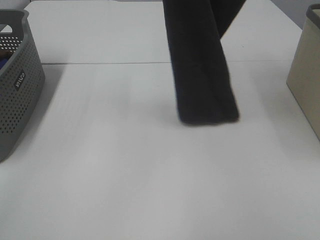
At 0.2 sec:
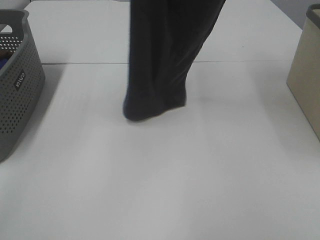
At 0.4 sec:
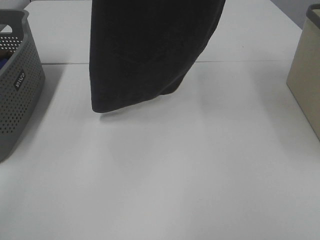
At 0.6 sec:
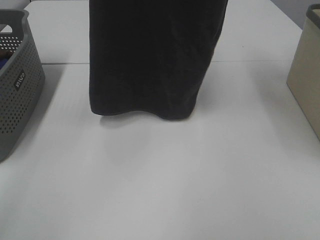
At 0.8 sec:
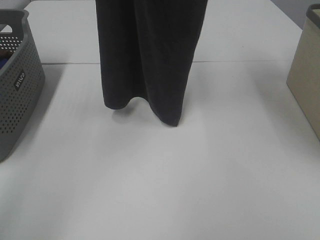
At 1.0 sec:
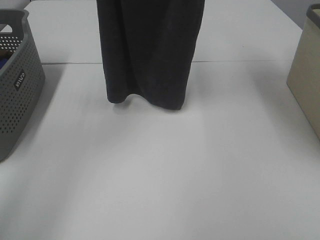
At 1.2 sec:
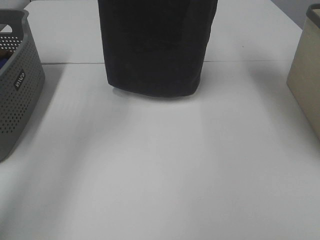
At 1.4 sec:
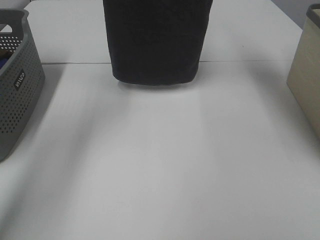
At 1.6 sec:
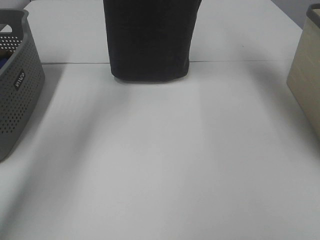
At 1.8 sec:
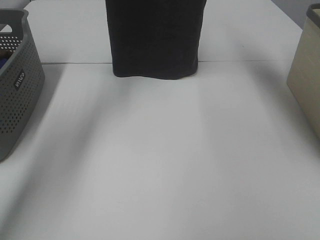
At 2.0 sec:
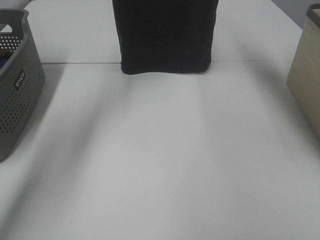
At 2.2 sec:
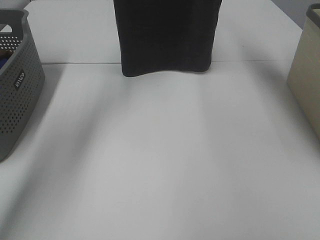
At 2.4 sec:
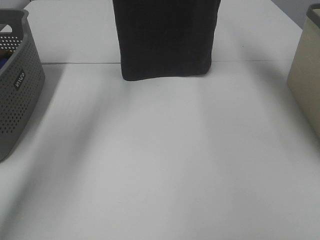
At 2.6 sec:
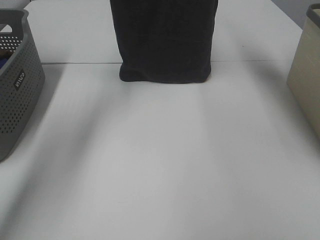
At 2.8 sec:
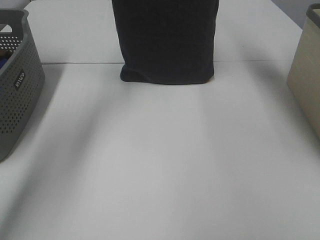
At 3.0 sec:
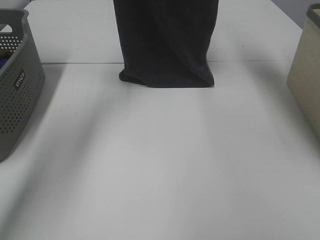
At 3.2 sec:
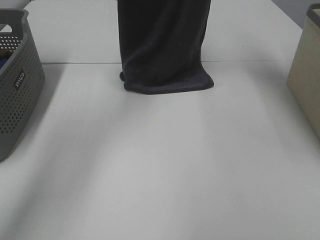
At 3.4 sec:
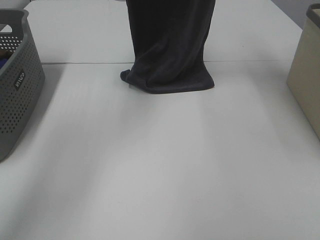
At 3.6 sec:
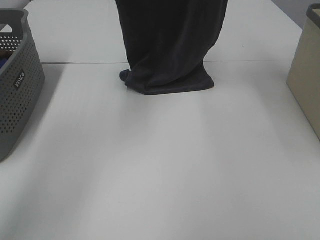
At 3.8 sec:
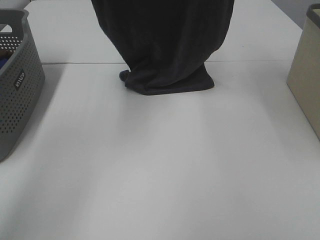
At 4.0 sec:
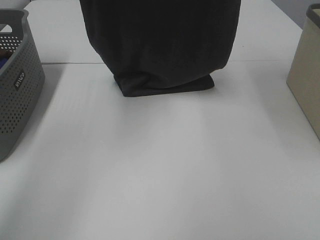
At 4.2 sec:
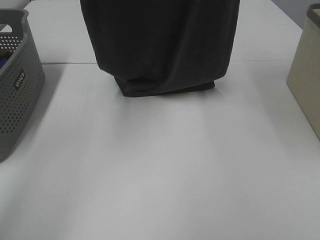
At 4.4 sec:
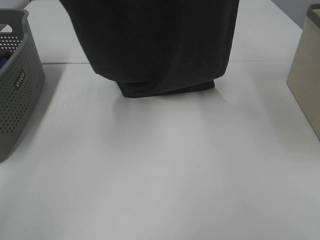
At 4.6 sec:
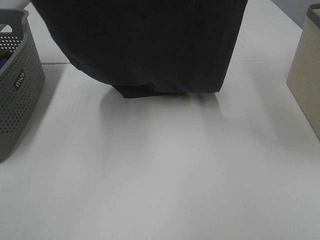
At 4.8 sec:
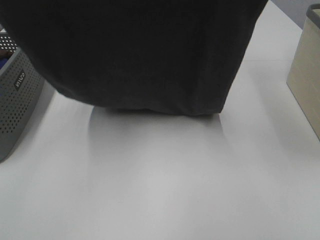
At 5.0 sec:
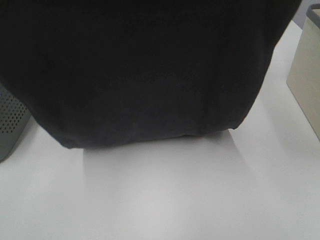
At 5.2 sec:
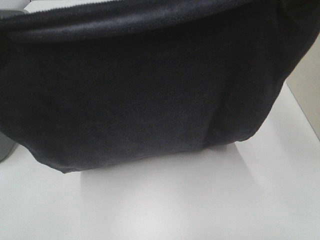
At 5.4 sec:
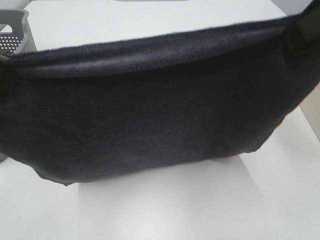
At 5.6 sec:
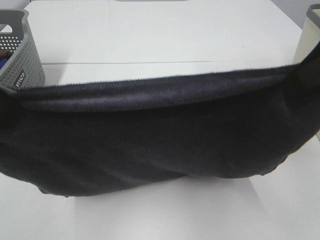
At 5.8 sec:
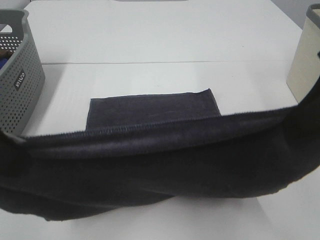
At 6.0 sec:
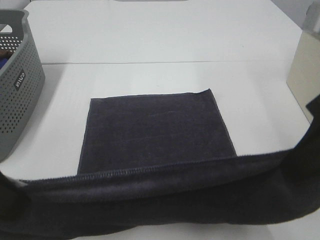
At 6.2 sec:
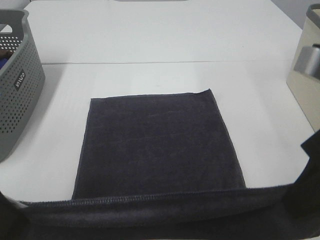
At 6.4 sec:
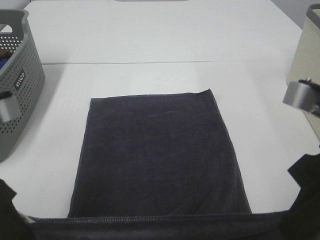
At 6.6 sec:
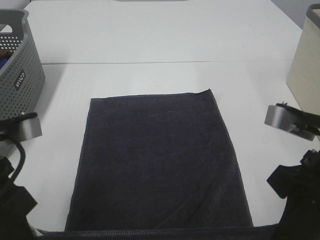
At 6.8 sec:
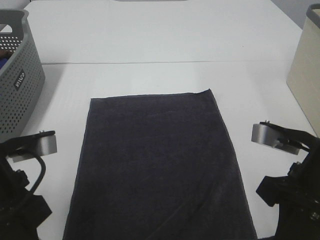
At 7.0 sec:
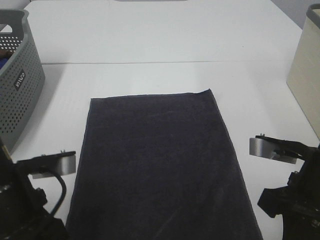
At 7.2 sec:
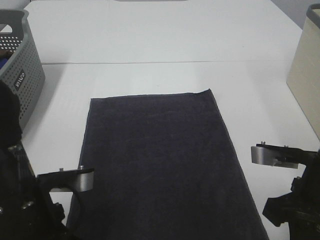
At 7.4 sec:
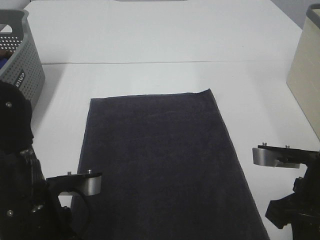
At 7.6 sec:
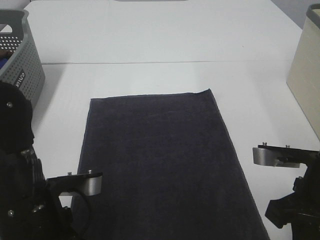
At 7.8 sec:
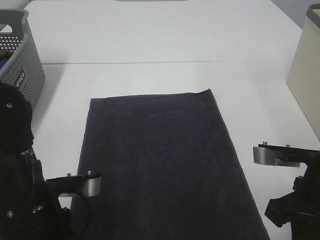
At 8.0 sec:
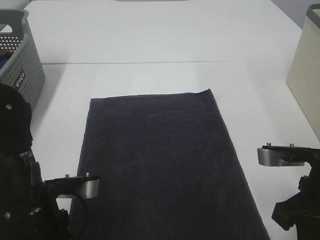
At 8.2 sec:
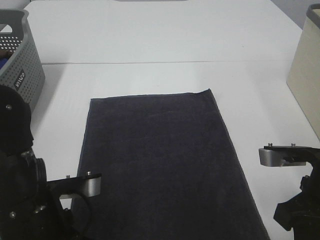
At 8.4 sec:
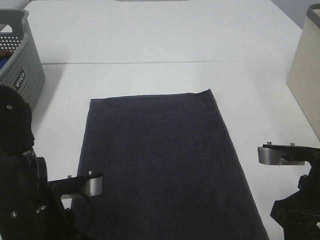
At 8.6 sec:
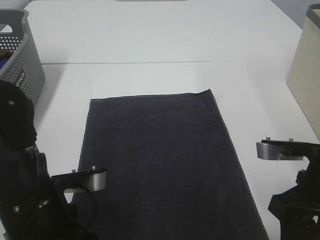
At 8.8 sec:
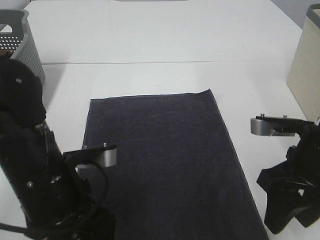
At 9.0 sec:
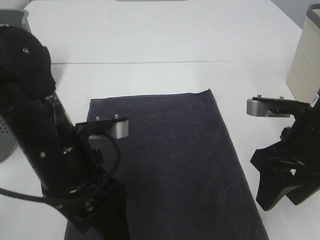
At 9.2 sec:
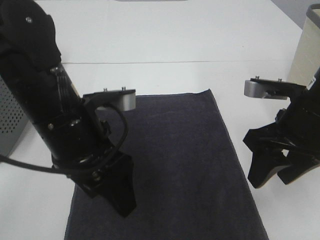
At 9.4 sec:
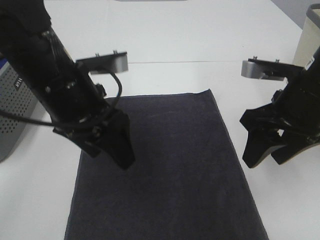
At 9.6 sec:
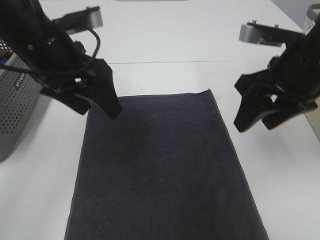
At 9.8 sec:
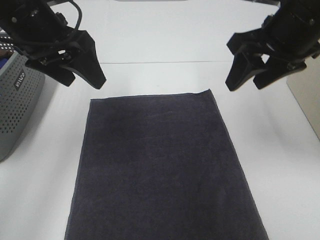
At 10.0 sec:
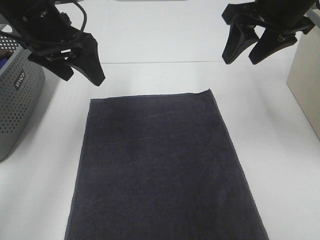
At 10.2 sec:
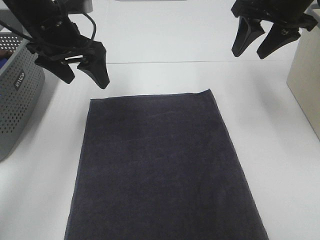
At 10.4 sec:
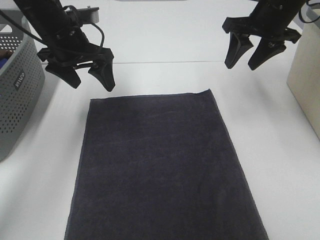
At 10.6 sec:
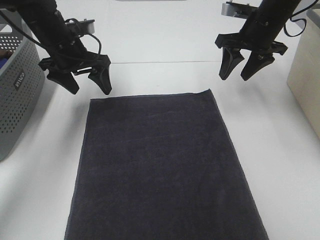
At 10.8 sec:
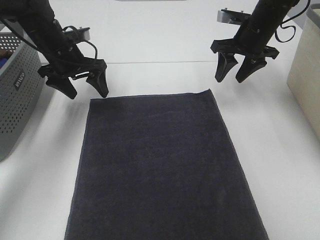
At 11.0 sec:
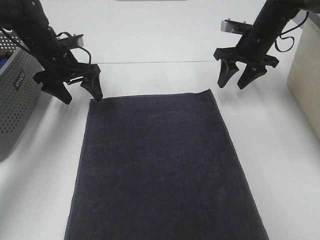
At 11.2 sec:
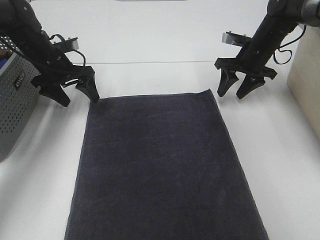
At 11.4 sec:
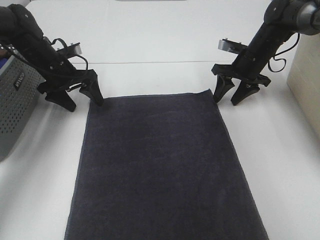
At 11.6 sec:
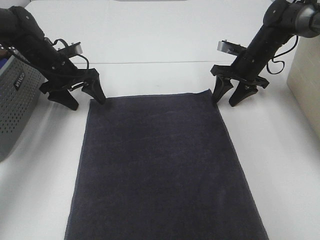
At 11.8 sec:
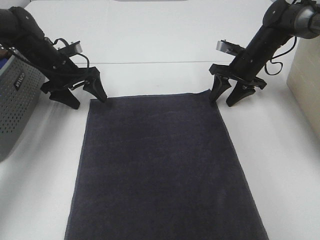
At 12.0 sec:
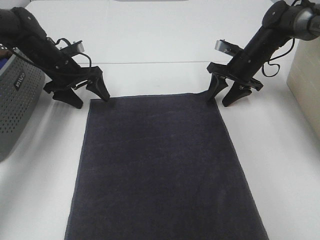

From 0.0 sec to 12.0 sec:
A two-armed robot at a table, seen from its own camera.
Task of the whole recording: Remove the towel and place it.
Step, from 0.0 sec to 4.8 sec: Left hand: spread the grey towel flat on the table.
Step, from 0.0 sec to 4.8 sec: Right hand: spread the grey towel flat on the table.
From 0.0 sec to 1.6 sec: The two grippers go roughly 20 cm forward.
From 1.6 sec to 3.0 sec: There are only small adjustments of the grippers.
From 3.0 sec to 4.4 sec: The two grippers go approximately 15 cm backward.
From 4.4 sec to 6.0 sec: The right gripper is displaced downward and backward by approximately 25 cm. Meanwhile the left gripper heads backward and downward, covering about 25 cm.
From 6.0 sec to 7.6 sec: The right gripper moves downward, about 15 cm, while the left gripper is displaced downward and to the right by about 15 cm.
From 7.6 sec to 9.0 sec: The right gripper ends up some 5 cm from where it was, and opens up. Meanwhile the left gripper ends up some 5 cm from where it was, and opens its fingers.
From 9.0 sec to 10.4 sec: Both grippers travel together forward, approximately 20 cm.
From 10.4 sec to 12.0 sec: The right gripper is displaced downward and forward by approximately 15 cm, while the left gripper shifts about 15 cm downward, forward and to the left.

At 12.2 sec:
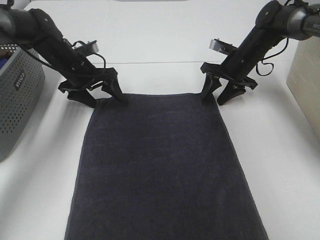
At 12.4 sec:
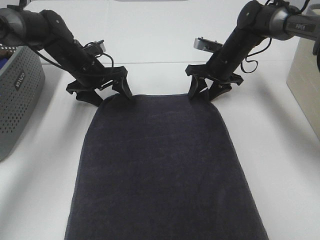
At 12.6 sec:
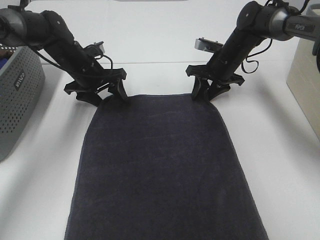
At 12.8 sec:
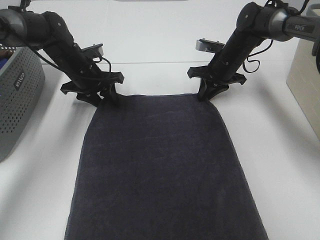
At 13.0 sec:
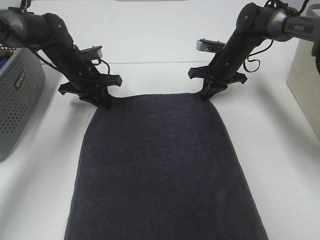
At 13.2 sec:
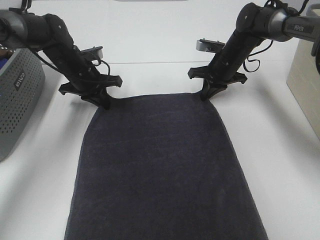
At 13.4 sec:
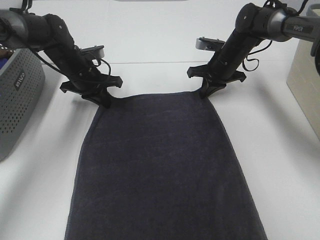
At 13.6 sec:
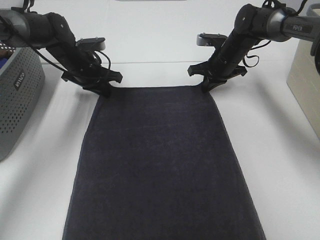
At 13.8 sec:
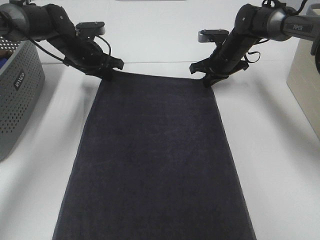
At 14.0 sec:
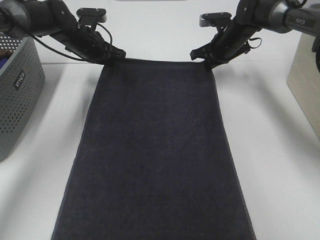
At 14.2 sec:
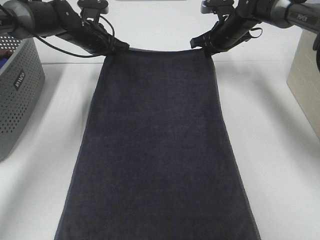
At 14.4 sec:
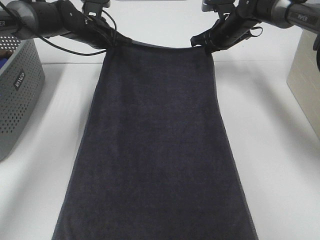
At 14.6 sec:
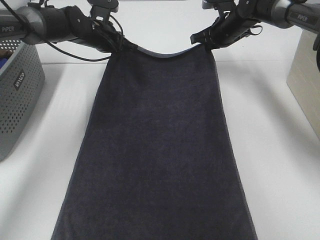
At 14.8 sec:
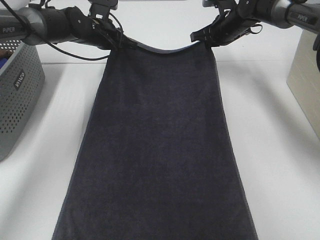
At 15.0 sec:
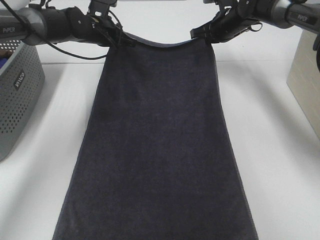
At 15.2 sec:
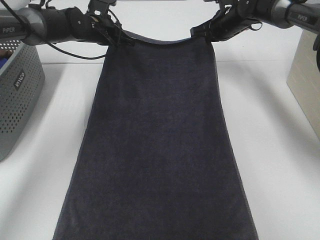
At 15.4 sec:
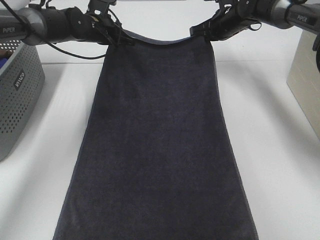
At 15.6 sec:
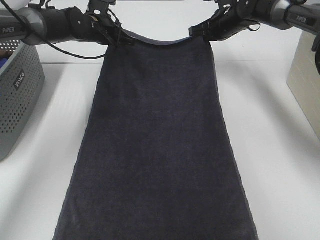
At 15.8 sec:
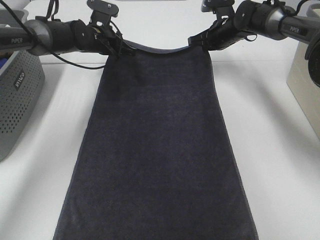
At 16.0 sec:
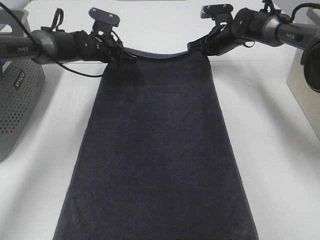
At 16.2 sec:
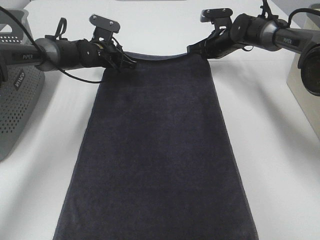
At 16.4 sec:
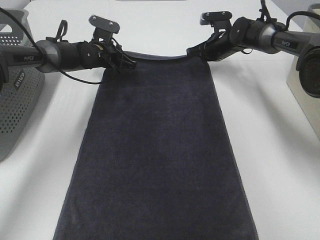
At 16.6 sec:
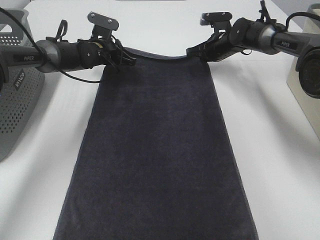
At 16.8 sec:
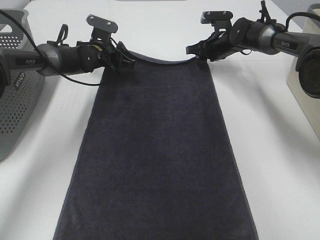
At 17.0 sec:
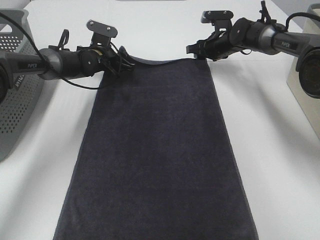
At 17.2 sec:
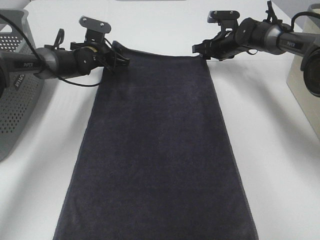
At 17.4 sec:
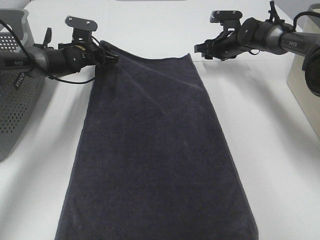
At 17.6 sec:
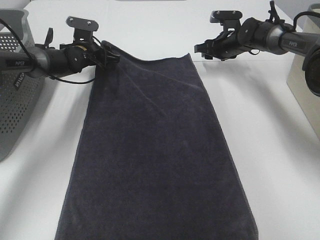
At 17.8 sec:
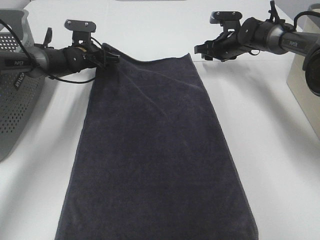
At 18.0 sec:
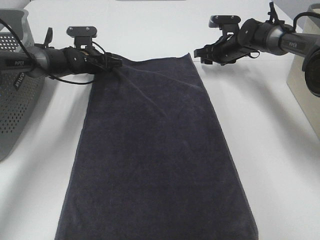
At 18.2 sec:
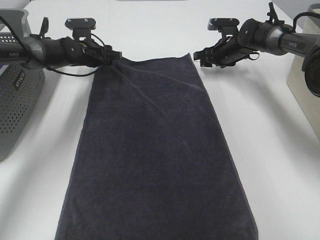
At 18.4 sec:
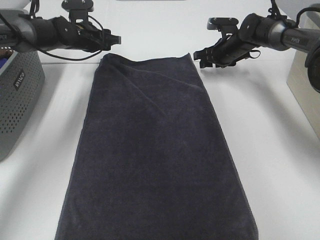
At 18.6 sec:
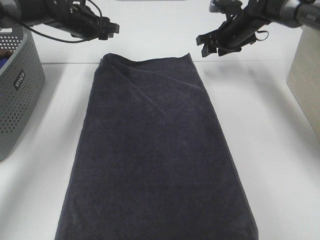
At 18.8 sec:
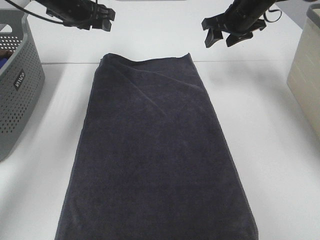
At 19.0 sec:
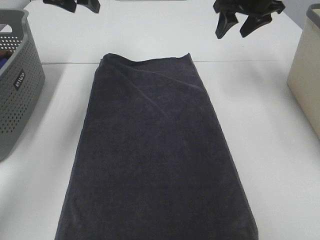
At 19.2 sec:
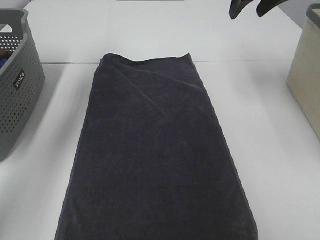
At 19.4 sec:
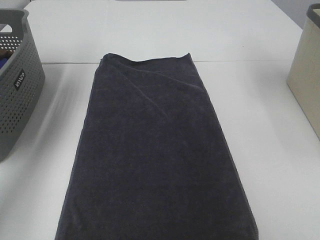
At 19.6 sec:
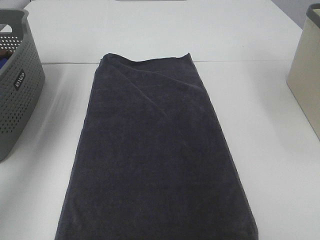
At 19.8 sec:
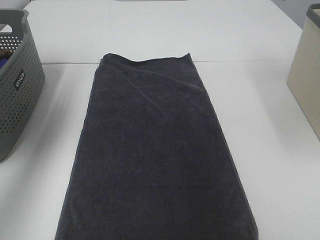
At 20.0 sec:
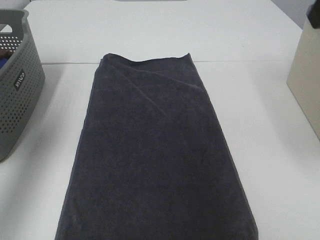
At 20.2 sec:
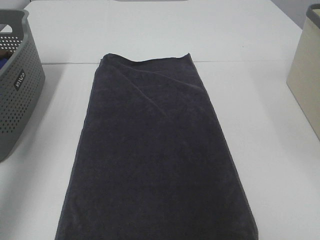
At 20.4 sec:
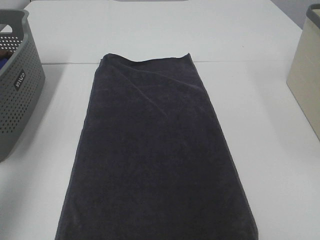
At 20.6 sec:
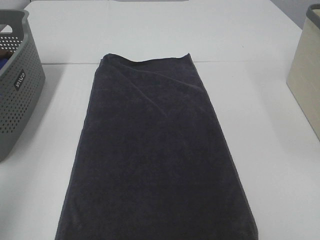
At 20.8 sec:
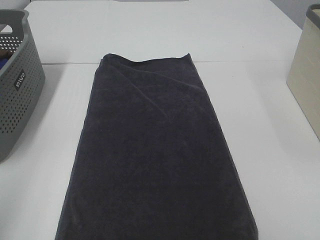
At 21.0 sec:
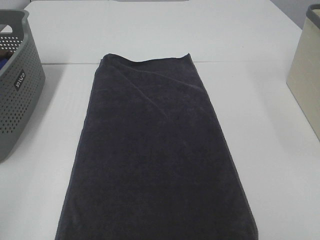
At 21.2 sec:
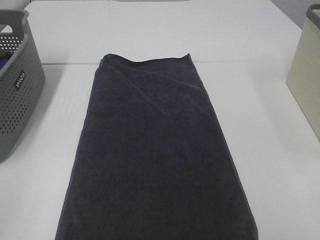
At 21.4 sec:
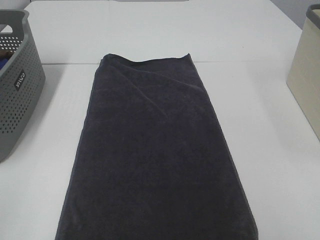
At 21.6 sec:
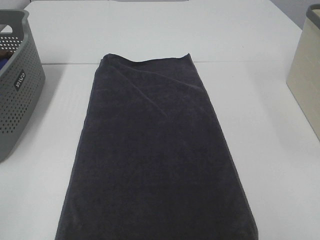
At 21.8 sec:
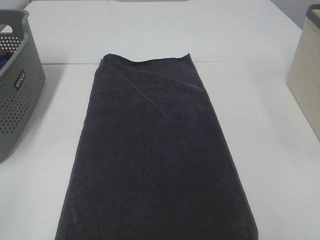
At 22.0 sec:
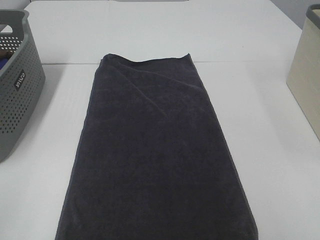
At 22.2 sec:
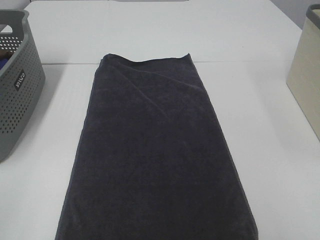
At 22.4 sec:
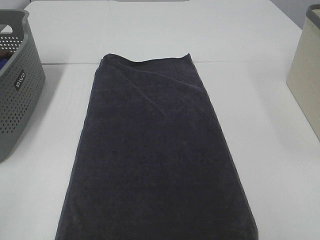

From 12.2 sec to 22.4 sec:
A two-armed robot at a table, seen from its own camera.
Task of the whole recording: Remove the towel and place it.
From 12.2 sec to 13.6 sec: The left gripper closes its fingers; the right gripper closes up.
From 13.6 sec to 15.2 sec: The grippers both shift upward by approximately 5 cm.
From 15.2 sec to 16.6 sec: The two grippers go about 5 cm downward.
From 16.6 sec to 18.0 sec: The left gripper opens. The right gripper opens up.
From 18.0 sec to 19.4 sec: The grippers both shift upward and backward by roughly 30 cm.
From 19.4 sec to 21.0 sec: Both grippers travel together backward, about 40 cm.
